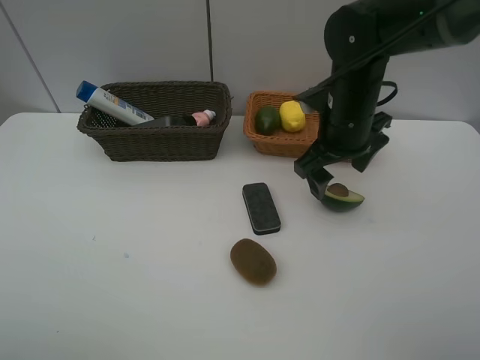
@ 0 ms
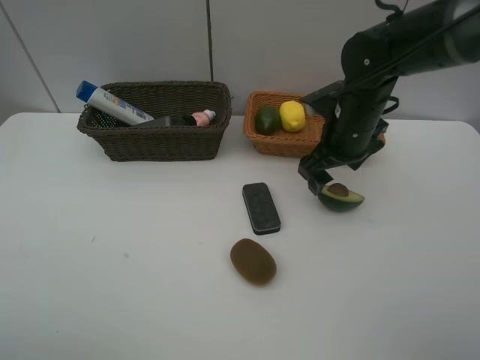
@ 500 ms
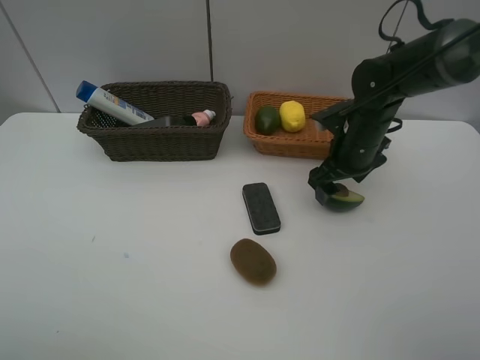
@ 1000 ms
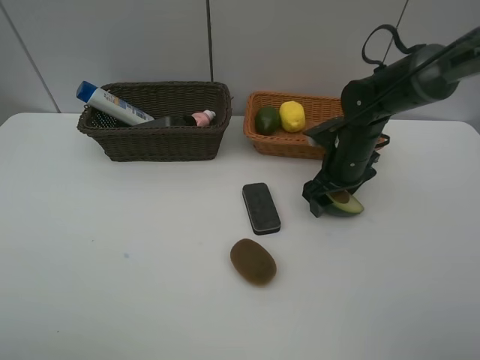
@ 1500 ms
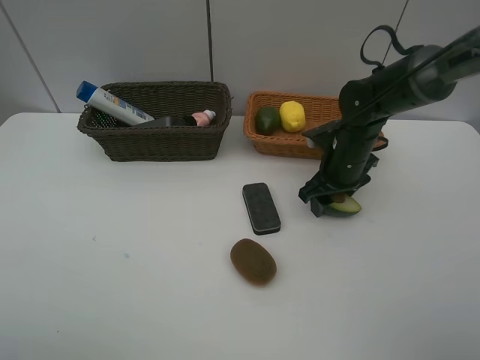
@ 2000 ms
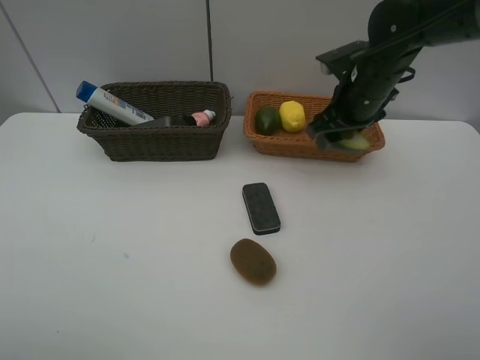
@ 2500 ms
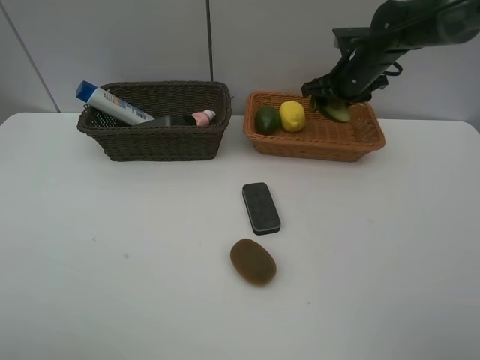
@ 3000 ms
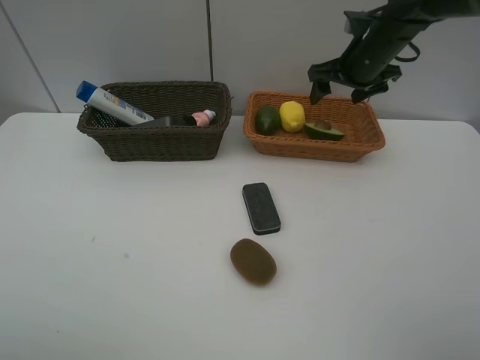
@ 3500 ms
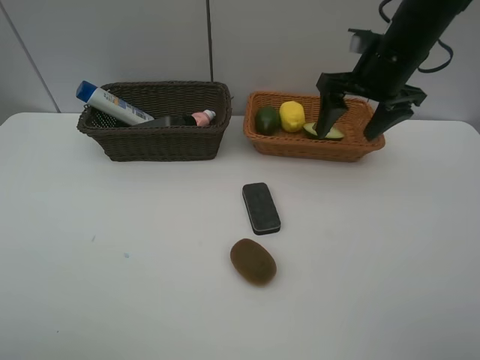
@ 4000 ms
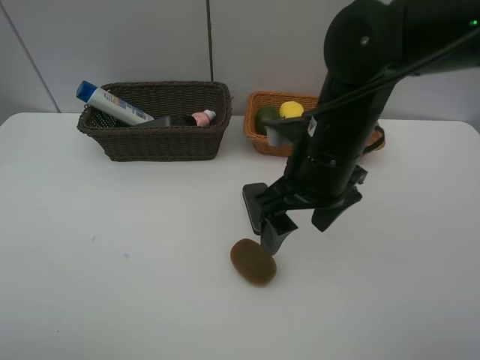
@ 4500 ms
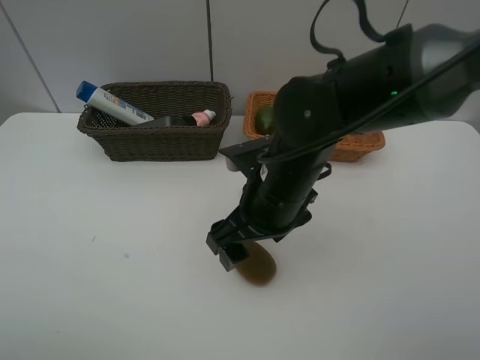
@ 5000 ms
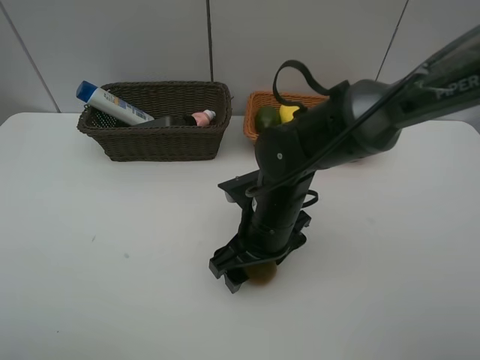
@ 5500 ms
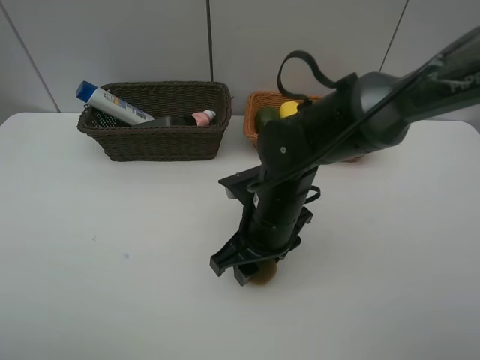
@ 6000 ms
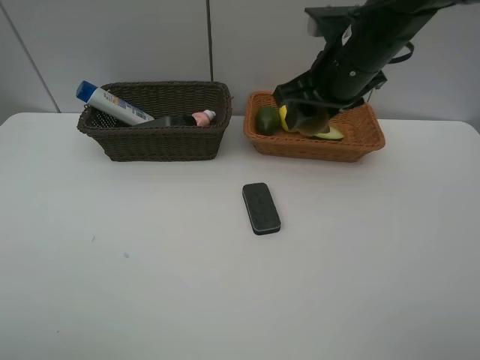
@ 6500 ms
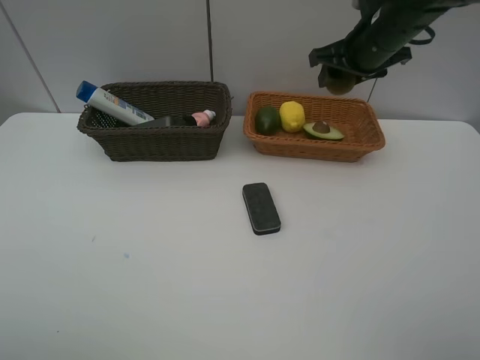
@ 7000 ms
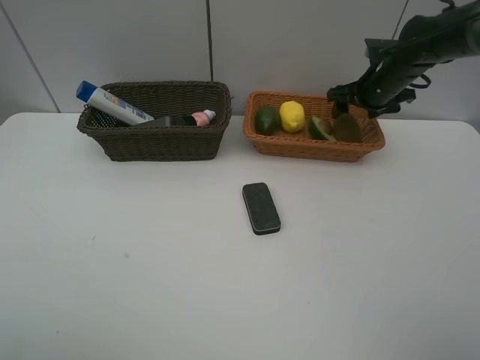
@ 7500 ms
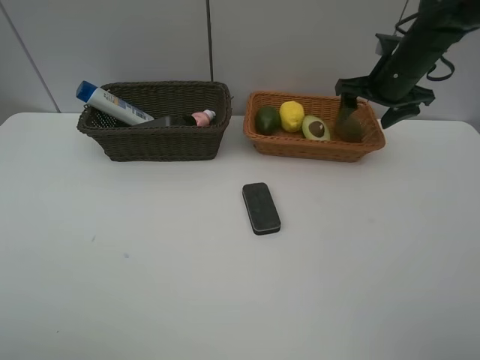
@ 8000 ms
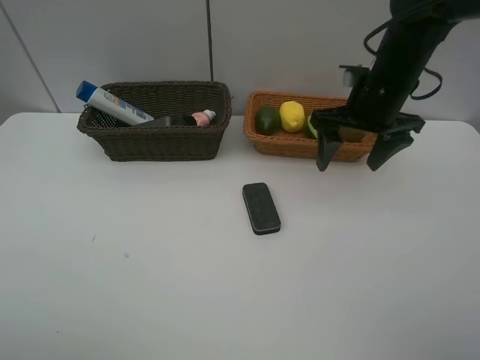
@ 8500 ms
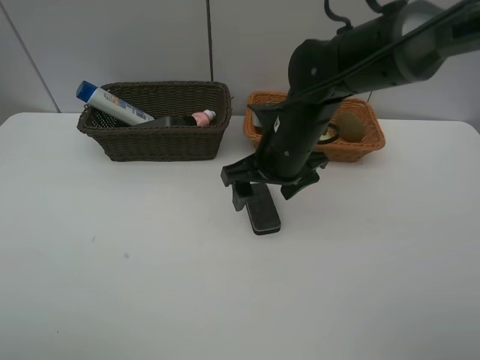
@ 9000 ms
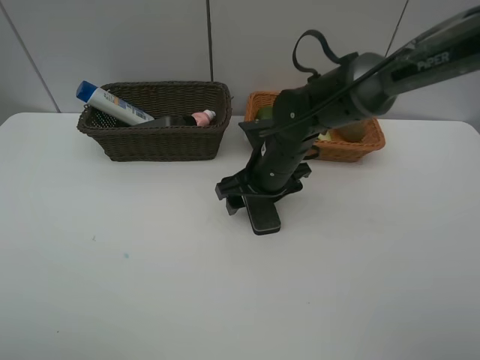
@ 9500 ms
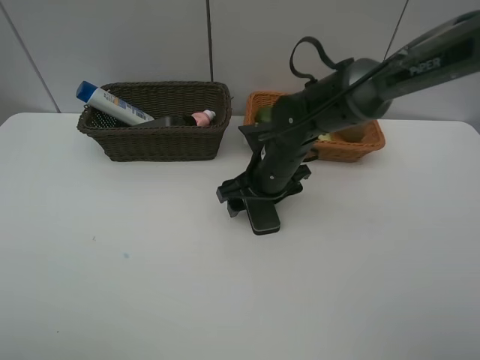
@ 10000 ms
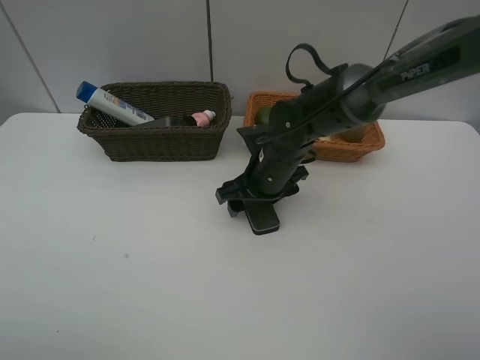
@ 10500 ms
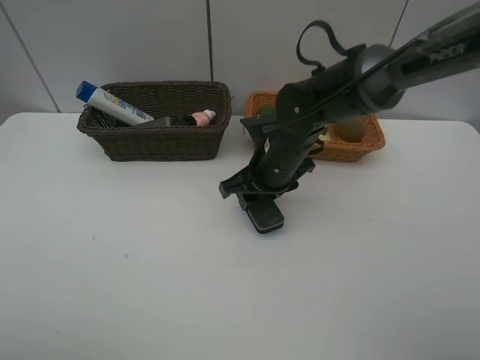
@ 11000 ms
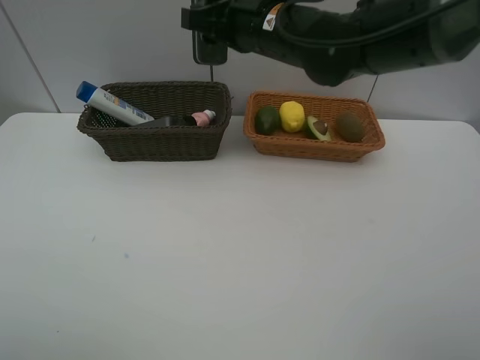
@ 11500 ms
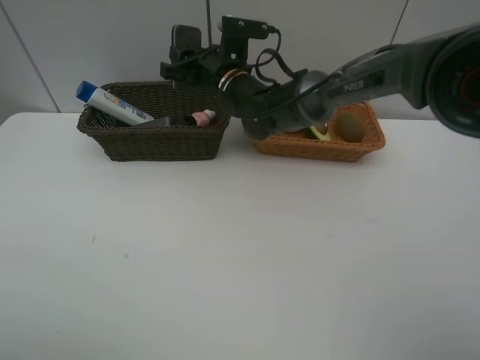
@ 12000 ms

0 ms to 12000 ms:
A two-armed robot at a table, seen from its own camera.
Task of the whole recording: Place multiple objects separately in different baskets.
Step, 0 ms to 2000 ms: Pick up the avocado with right gripper.
Step, 2500 ms to 3000 ms: Place the avocado in the light basket with right gripper.
Step, 3500 ms to 6000 ms: Pick up kiwi with right gripper.
Step, 6500 ms to 7500 ms: Place the kiwi in the light basket with right gripper.
Step, 8000 ms to 11000 ms: Pick up blackboard eraser with right gripper.
0 ms to 2000 ms: The right gripper is displaced downward by some 10 cm, and closes up.
2000 ms to 4000 ms: The right gripper shifts about 15 cm upward, and opens up.
4000 ms to 6000 ms: The right gripper heads to the left, downward and backward, covering approximately 25 cm, and closes up.
6000 ms to 8000 ms: The right gripper heads to the right, forward and upward, covering roughly 30 cm, and opens up.
8000 ms to 10000 ms: The right gripper shifts roughly 25 cm to the left, downward and backward.
10000 ms to 12000 ms: The right gripper goes roughly 15 cm forward, to the left and upward, and closes its fingers.

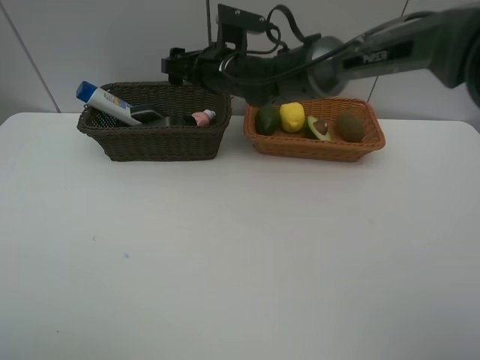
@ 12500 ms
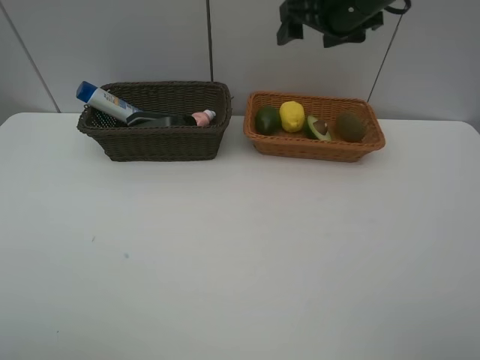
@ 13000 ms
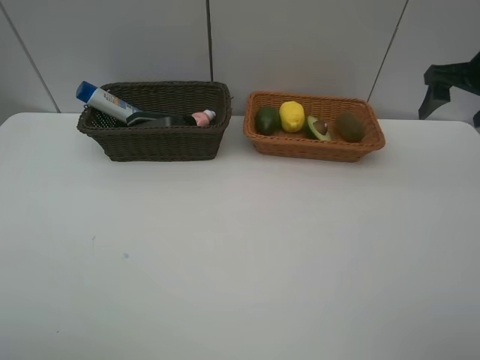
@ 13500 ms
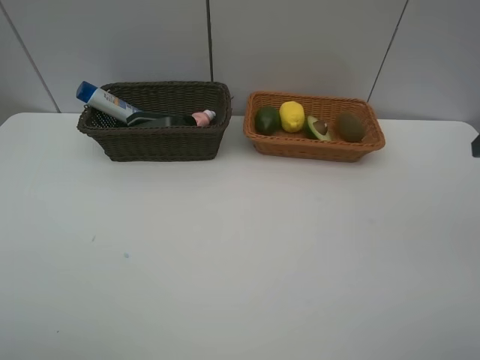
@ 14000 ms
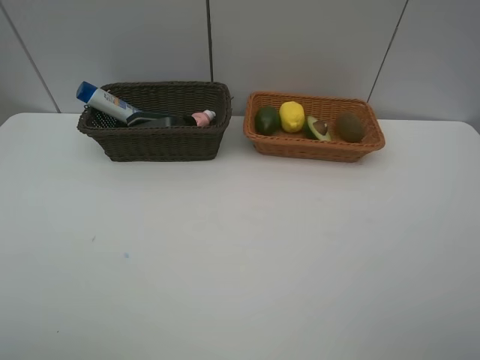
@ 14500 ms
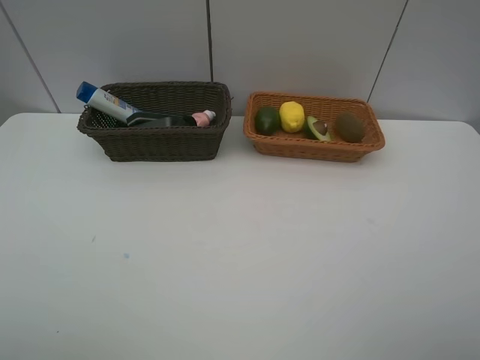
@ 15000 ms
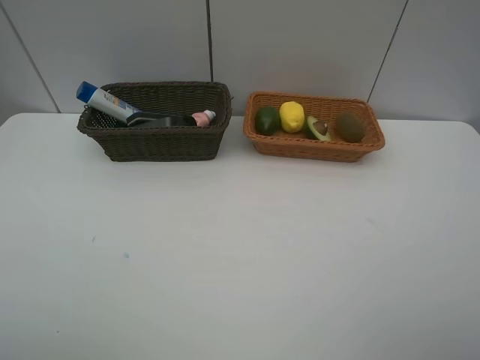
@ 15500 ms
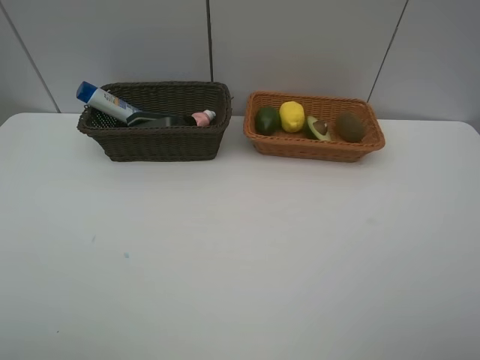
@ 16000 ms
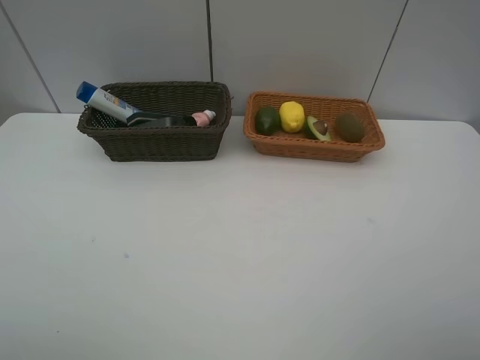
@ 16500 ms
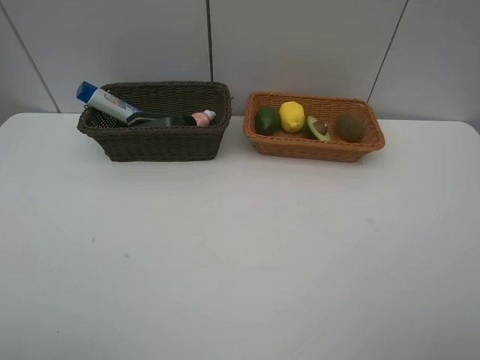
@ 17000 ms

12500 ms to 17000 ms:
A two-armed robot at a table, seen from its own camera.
Task of the whole recording: Place multiple objects separately in different baskets.
12500 ms to 14500 ms: The right gripper goes roughly 50 cm backward and to the right.
